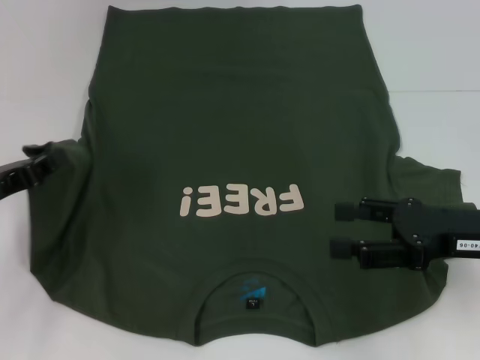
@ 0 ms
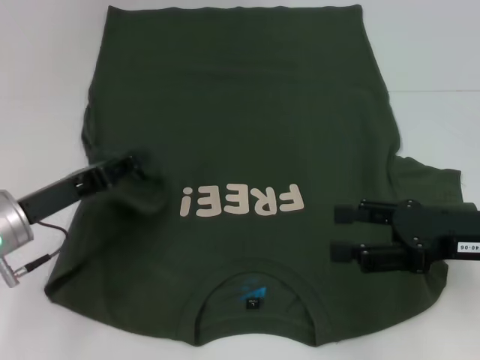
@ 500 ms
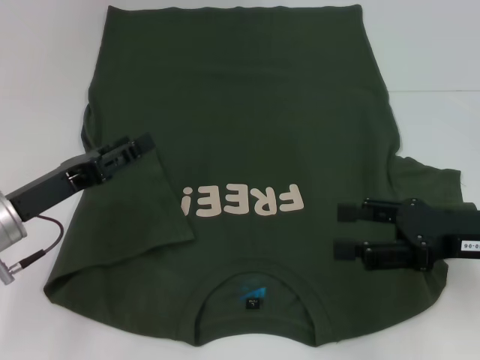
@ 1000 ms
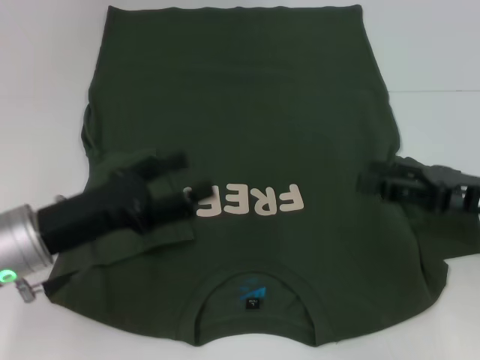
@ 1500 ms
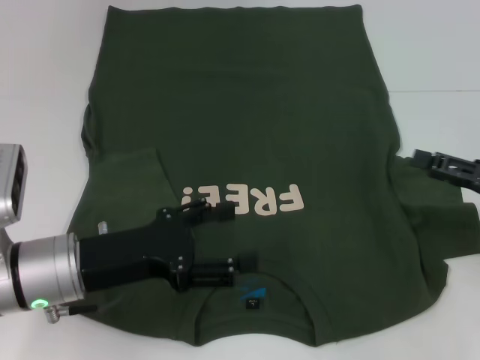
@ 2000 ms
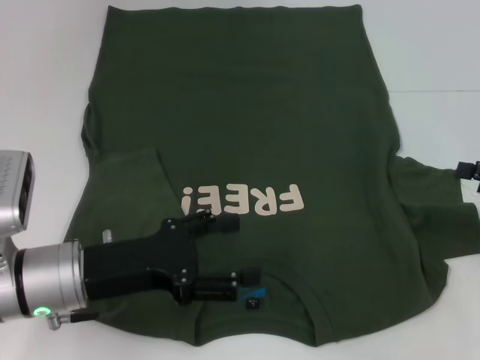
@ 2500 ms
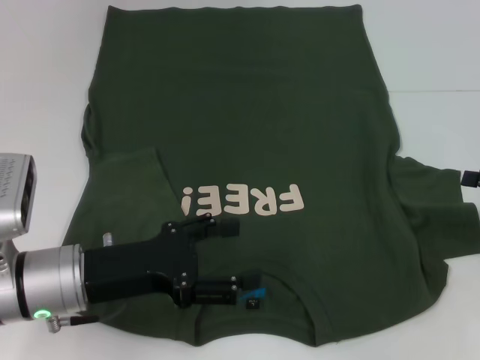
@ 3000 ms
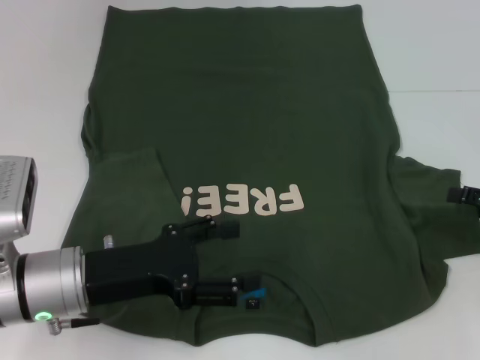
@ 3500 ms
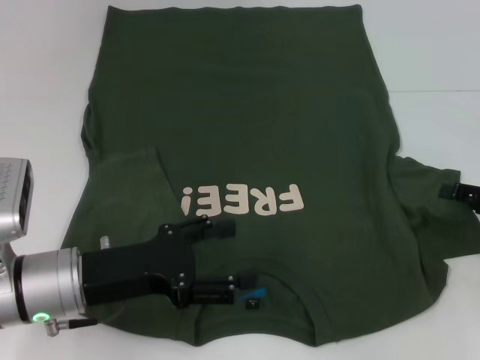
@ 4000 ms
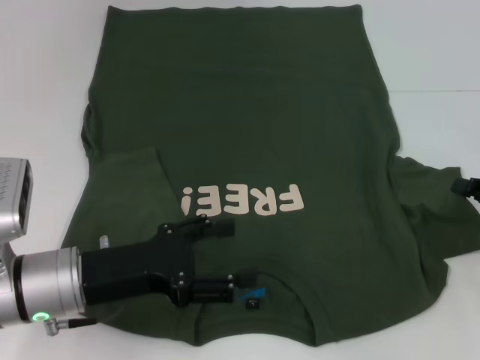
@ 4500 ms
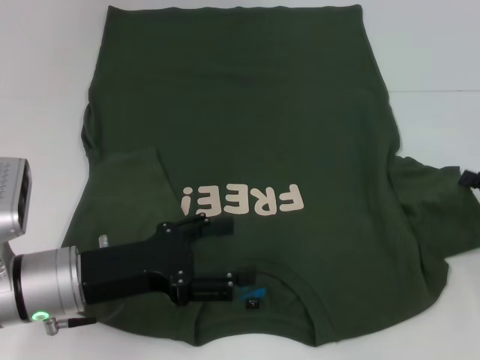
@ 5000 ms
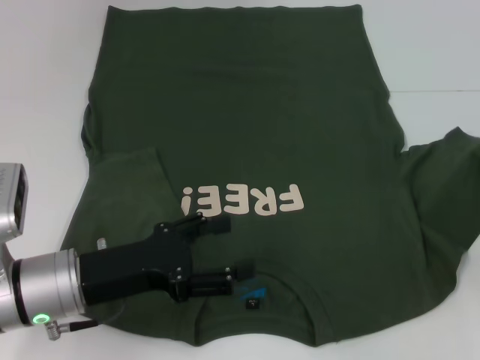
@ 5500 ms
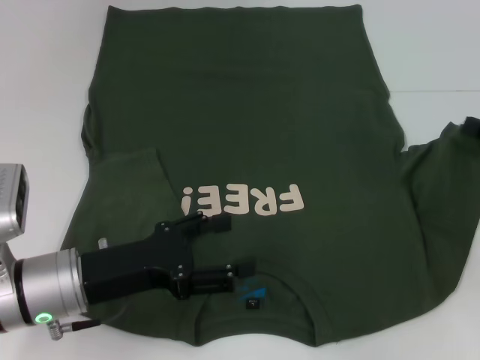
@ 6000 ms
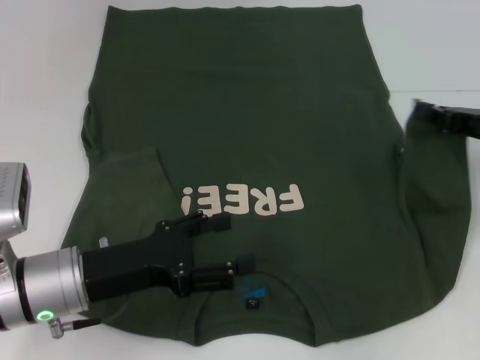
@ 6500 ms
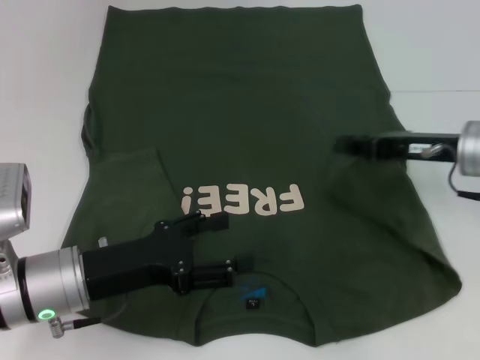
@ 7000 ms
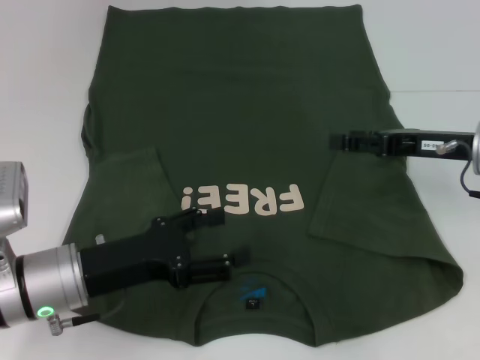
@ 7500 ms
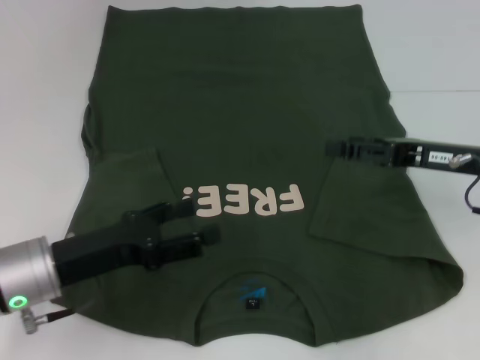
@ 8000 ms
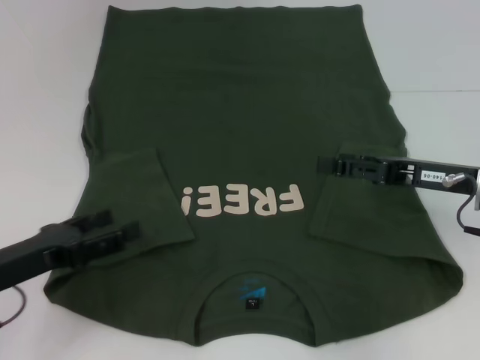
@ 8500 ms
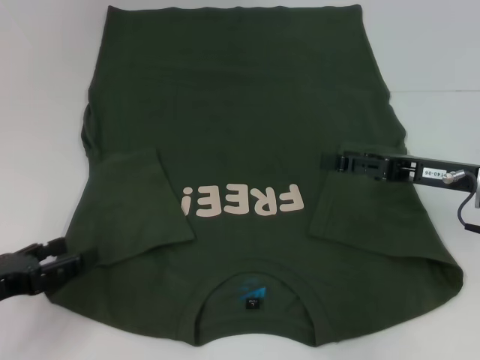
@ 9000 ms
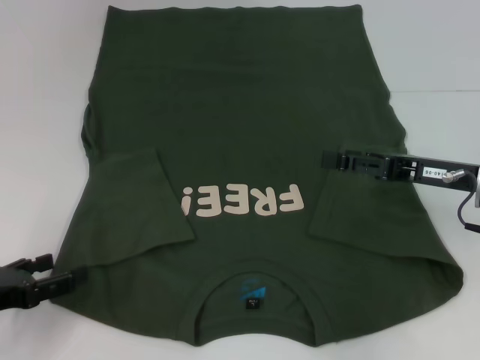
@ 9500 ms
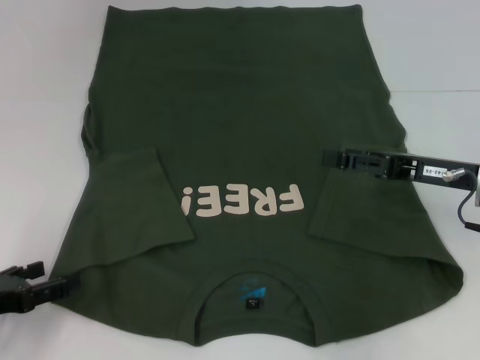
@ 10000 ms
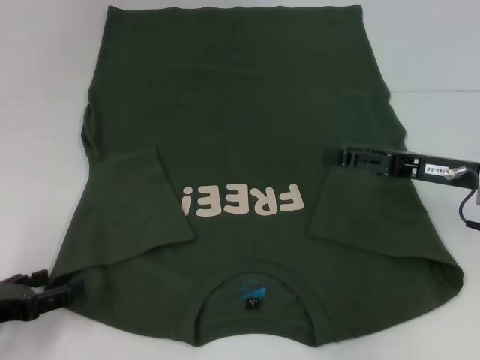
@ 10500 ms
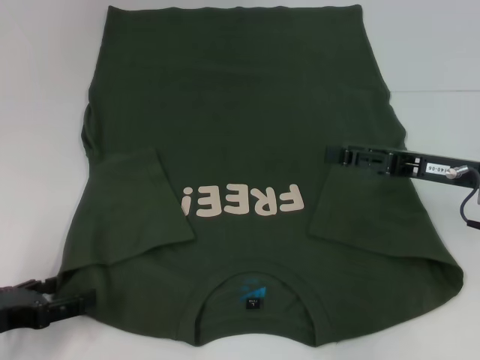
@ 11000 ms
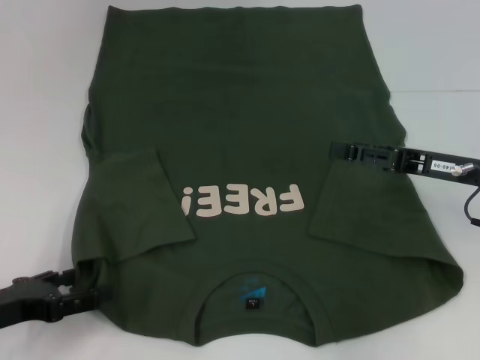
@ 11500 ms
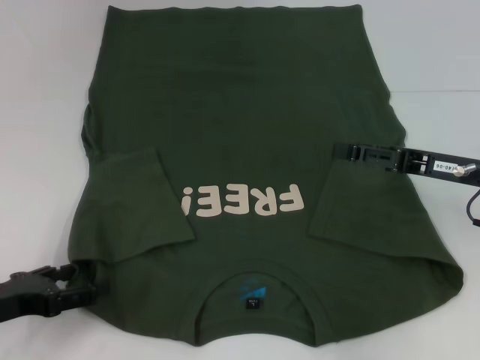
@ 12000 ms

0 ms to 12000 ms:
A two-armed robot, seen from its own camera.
Step, 1000 ms to 7000 ms: Fold the bottom right sleeve with your right hand.
0 ms to 2000 ms: The right gripper heads to the right, covering about 5 cm. Meanwhile the left gripper heads to the right, covering approximately 10 cm, and opens its fingers.
4000 ms to 6000 ms: The right gripper closes.
6000 ms to 8000 ms: The right gripper shifts some 10 cm to the left, and opens its fingers.
8000 ms to 10000 ms: The left gripper shifts roughly 10 cm to the left.
10000 ms to 12000 ms: The grippers move only a little.

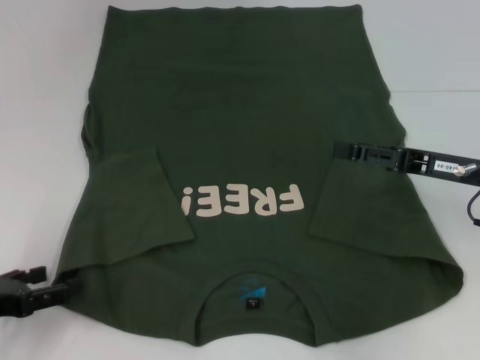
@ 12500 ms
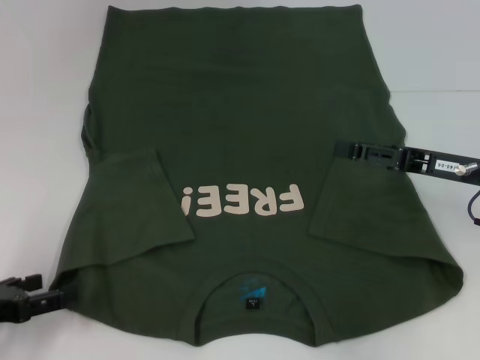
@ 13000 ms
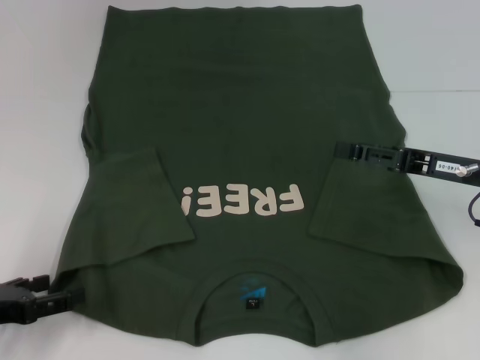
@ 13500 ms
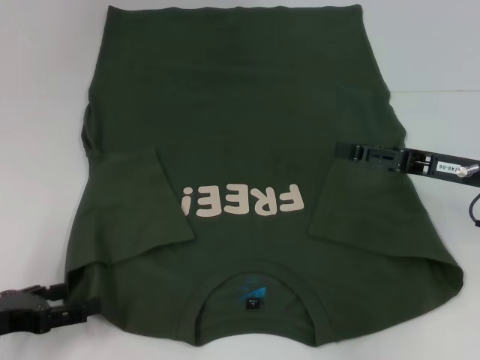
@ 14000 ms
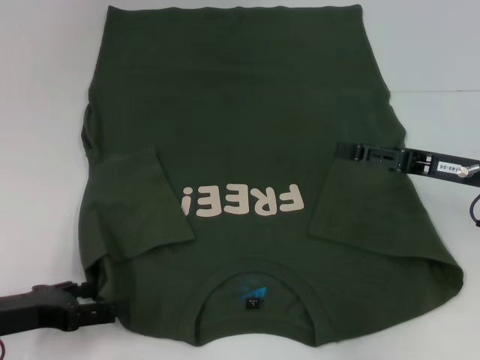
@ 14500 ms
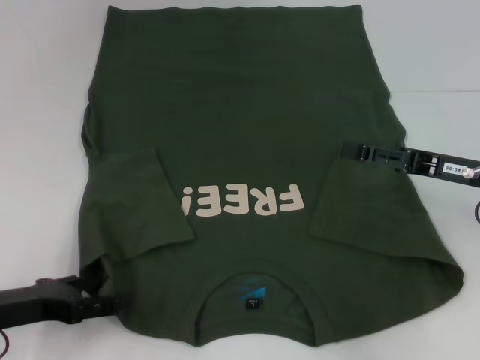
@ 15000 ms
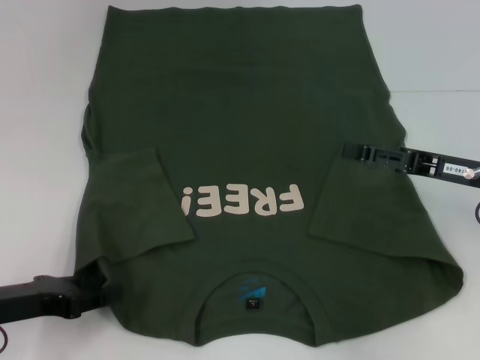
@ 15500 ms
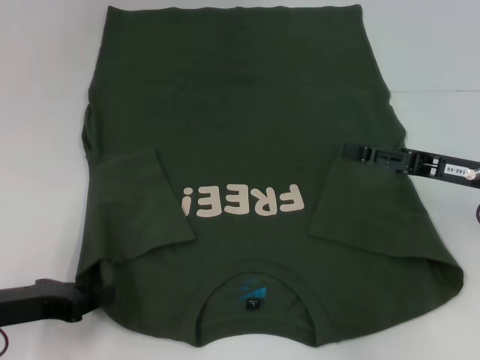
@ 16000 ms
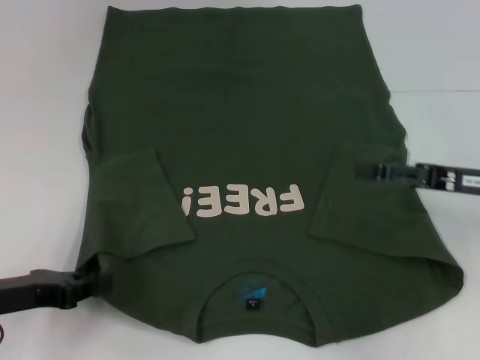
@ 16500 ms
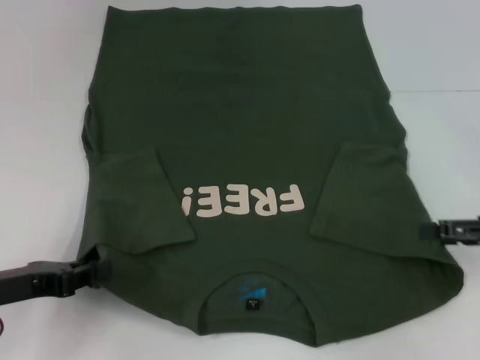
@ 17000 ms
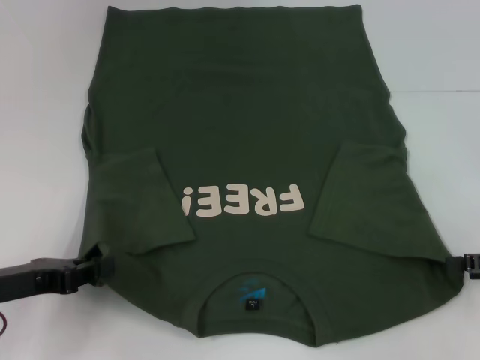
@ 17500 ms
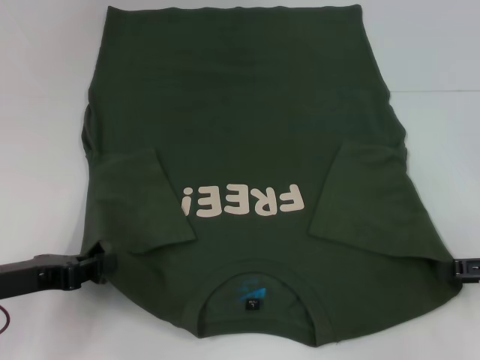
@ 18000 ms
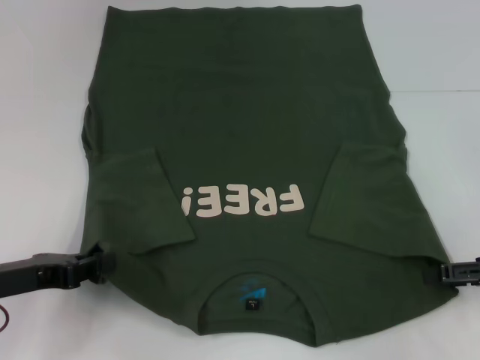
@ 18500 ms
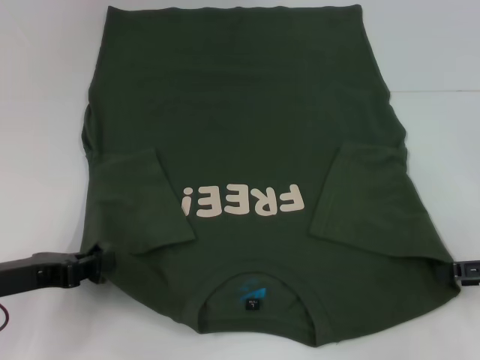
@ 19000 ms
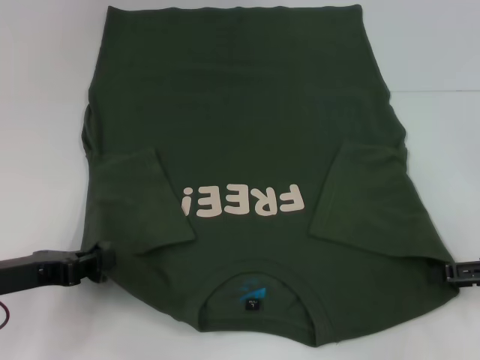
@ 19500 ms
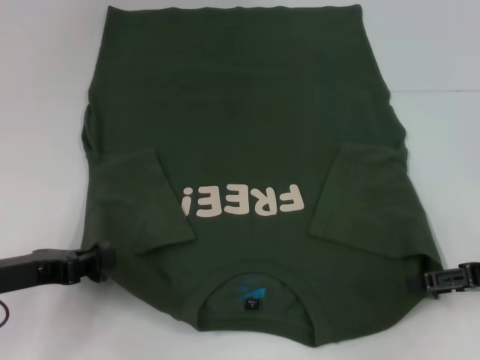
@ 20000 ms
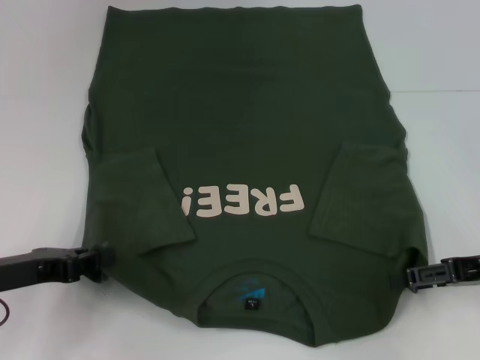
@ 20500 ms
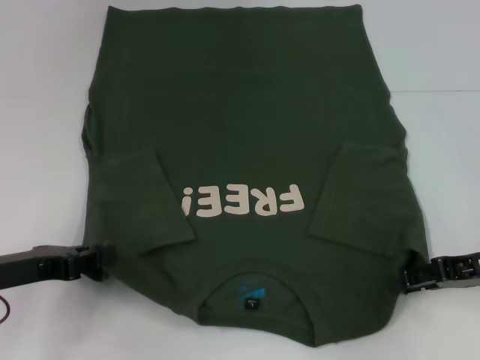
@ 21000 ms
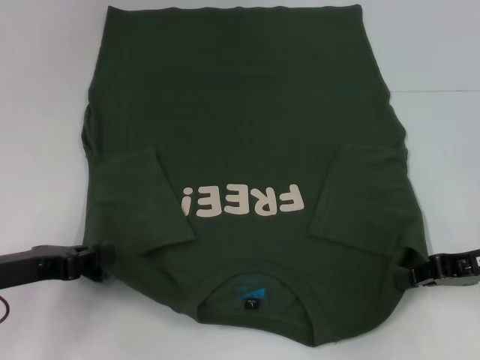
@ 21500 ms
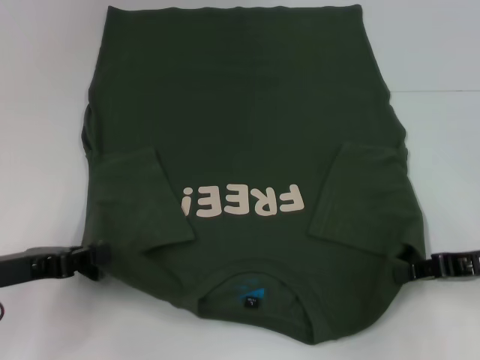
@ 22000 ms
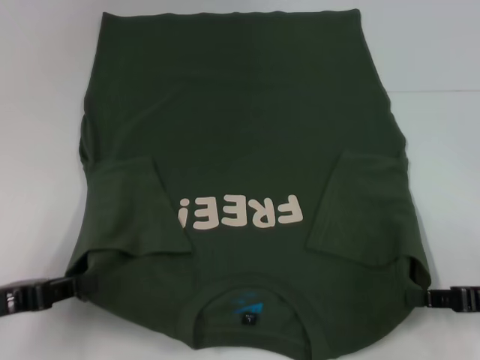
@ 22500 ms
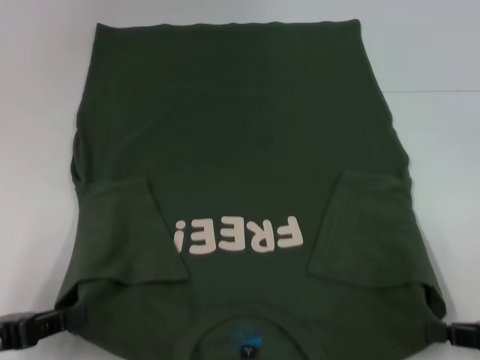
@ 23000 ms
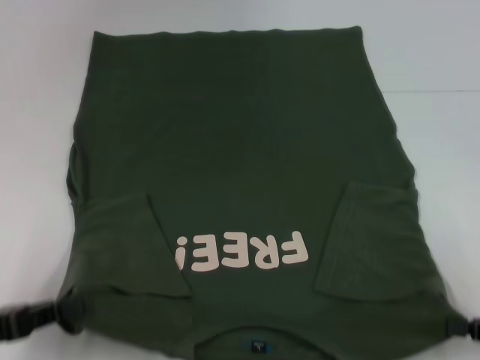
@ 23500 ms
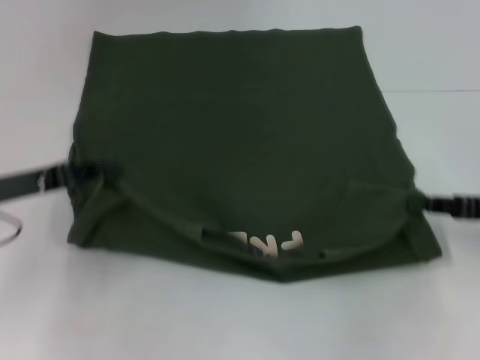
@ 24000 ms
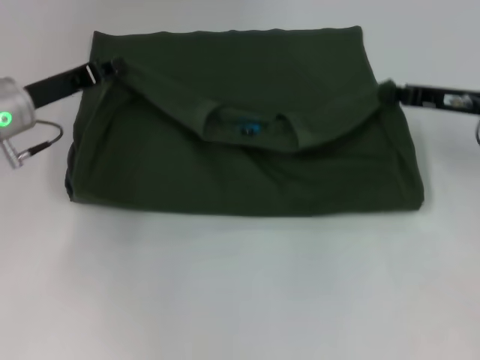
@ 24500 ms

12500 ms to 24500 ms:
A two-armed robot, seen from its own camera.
Step, 12500 ms to 17000 ms: Grab the bottom left corner with your left hand.
Step, 17500 ms to 22000 ms: Grab the bottom right corner with your right hand.
12500 ms to 14500 ms: The grippers move only a little.
14500 ms to 16500 ms: The left gripper closes up.
16500 ms to 18500 ms: The right gripper moves to the right, some 5 cm.
18500 ms to 20500 ms: The grippers stay close to where they were, moving slightly.
20500 ms to 22500 ms: The right gripper ends up some 5 cm from where it was, and closes up.
22500 ms to 24500 ms: The left gripper moves forward, some 20 cm; the right gripper goes about 15 cm forward and upward.

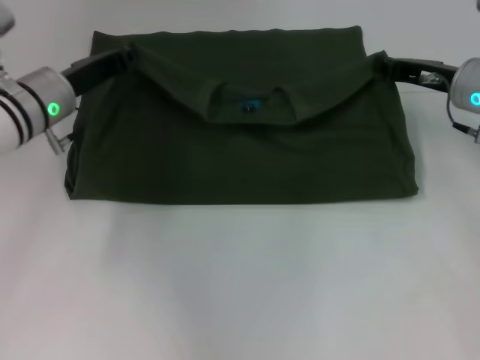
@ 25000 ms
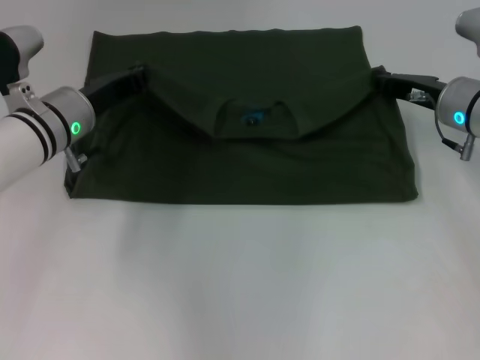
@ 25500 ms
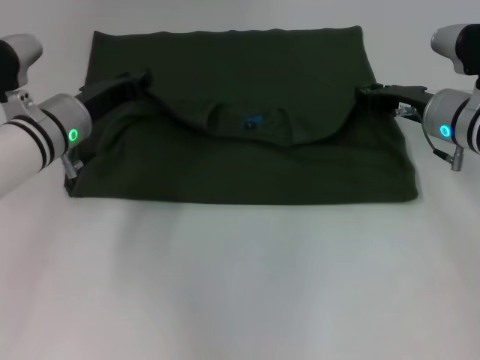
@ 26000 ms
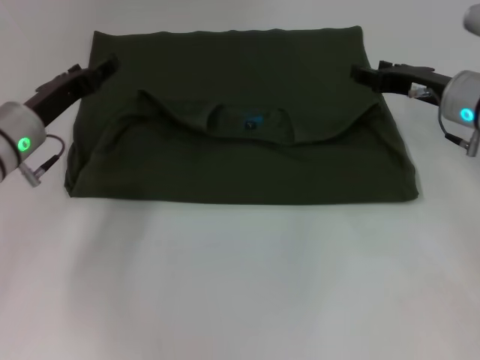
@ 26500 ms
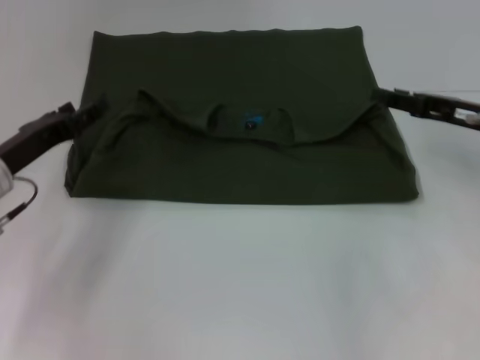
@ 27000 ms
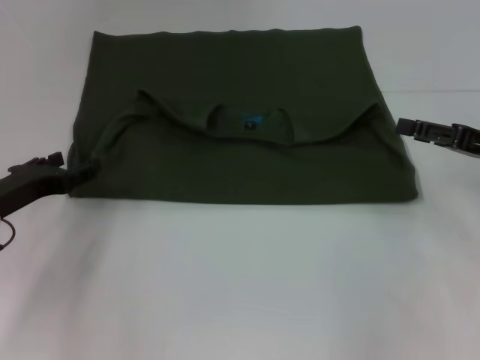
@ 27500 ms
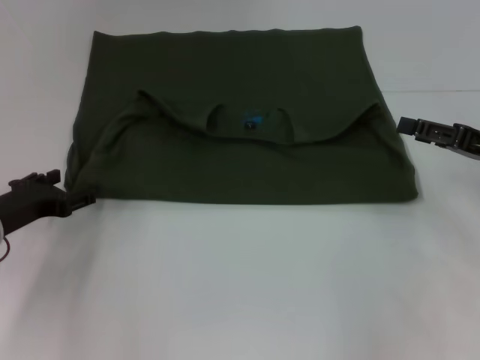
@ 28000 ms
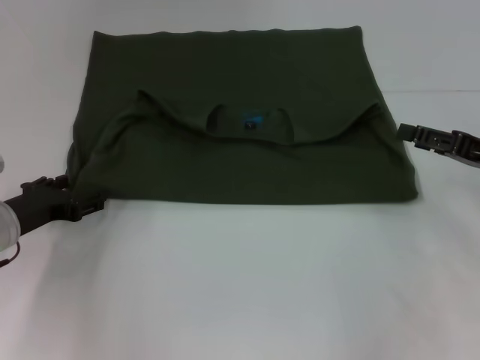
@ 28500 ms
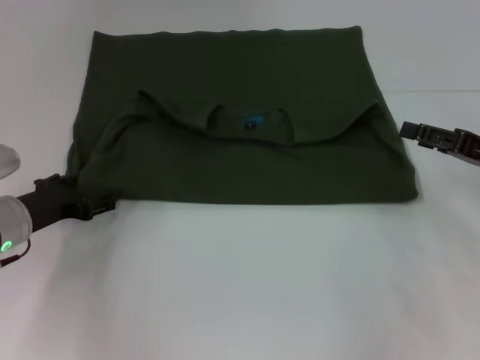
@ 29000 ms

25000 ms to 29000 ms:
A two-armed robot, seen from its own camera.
25000 ms to 27000 ms: The right gripper is displaced backward by roughly 5 cm, and opens its fingers, while the left gripper moves backward and to the left, approximately 10 cm, and opens.
27000 ms to 29000 ms: The right gripper ends up roughly 5 cm from where it was.
